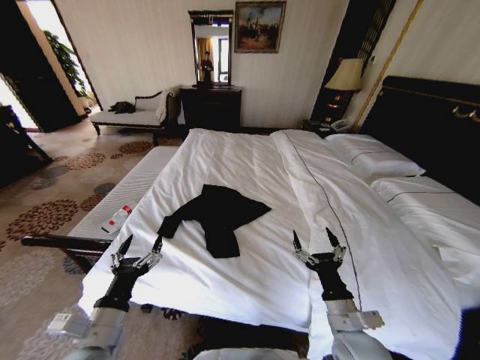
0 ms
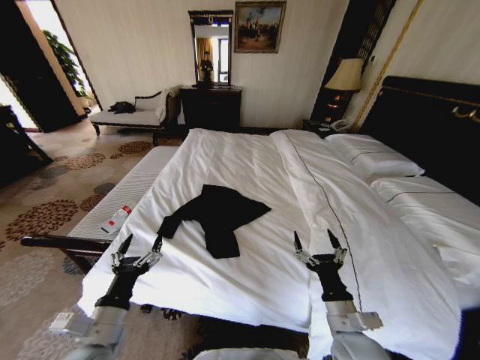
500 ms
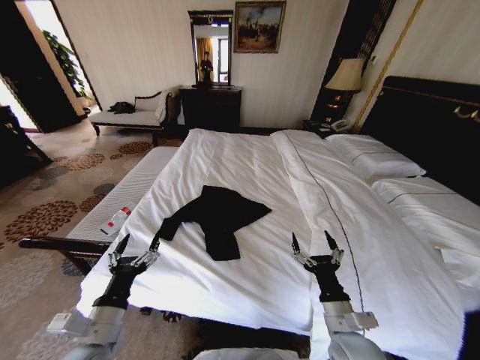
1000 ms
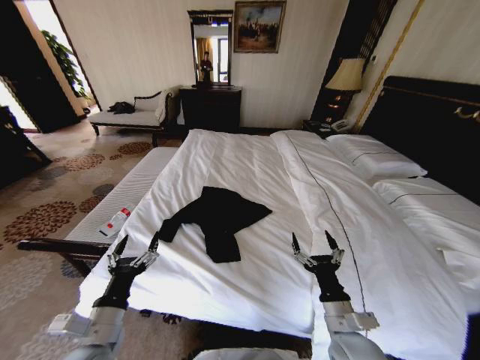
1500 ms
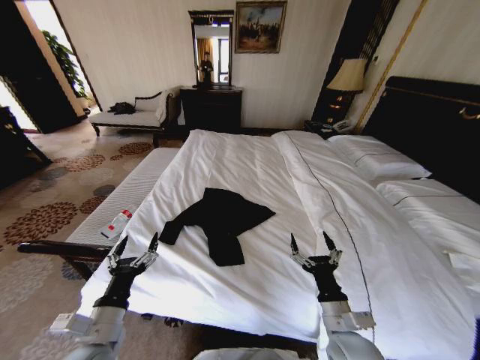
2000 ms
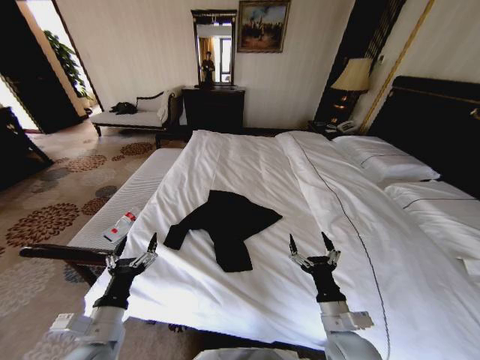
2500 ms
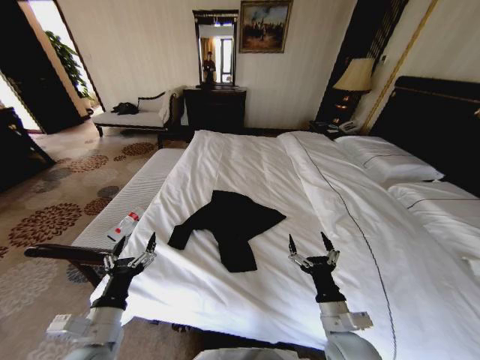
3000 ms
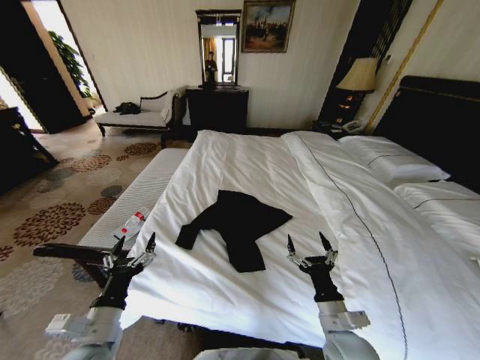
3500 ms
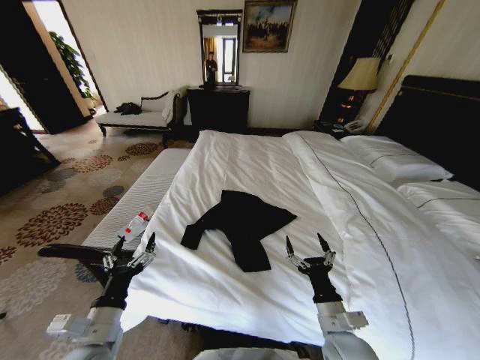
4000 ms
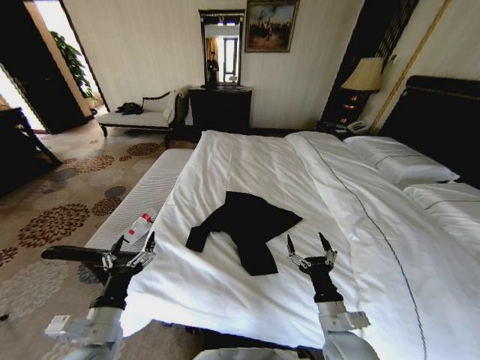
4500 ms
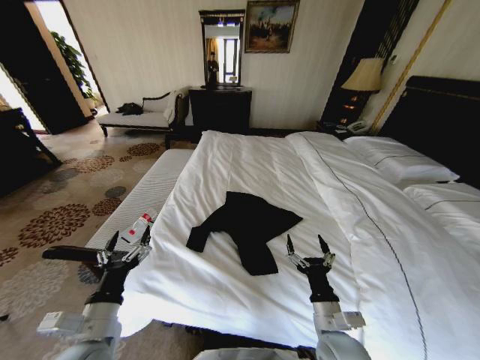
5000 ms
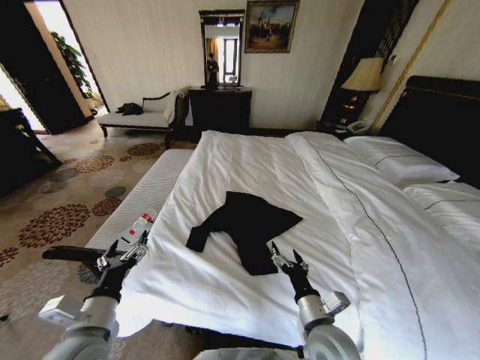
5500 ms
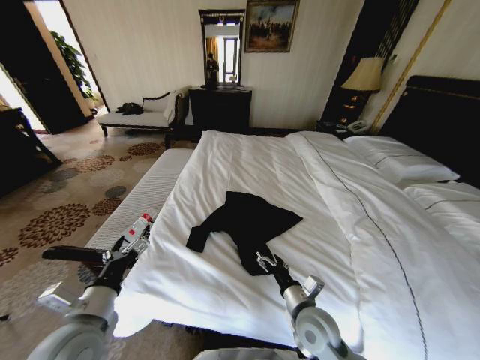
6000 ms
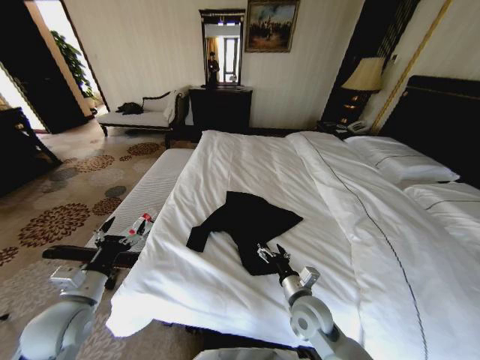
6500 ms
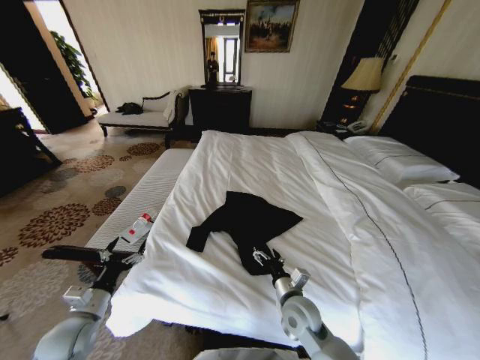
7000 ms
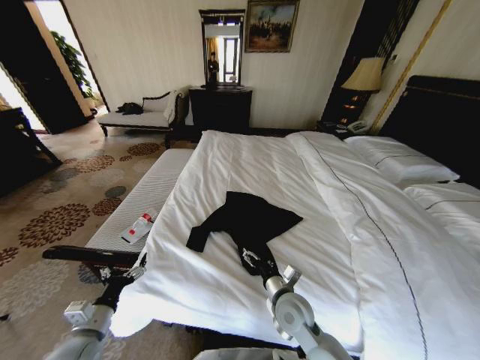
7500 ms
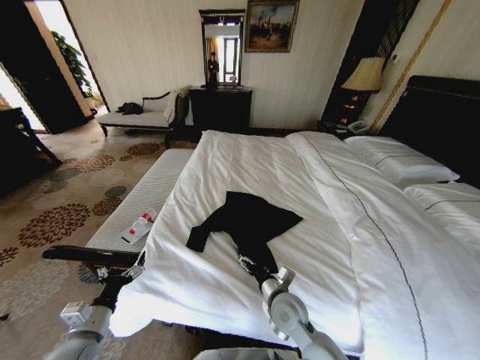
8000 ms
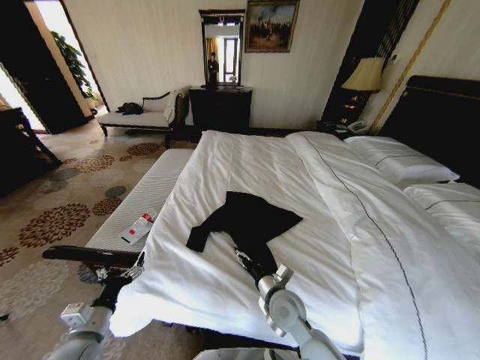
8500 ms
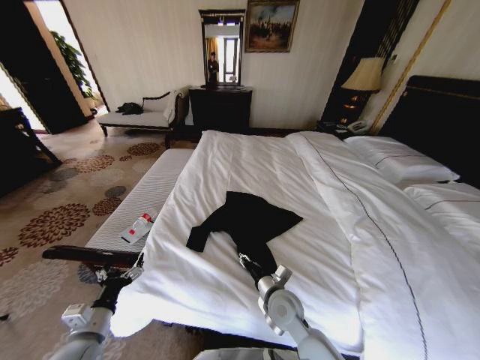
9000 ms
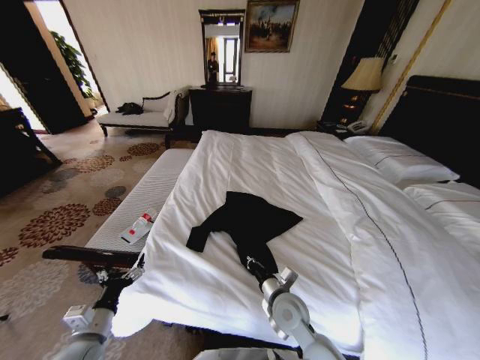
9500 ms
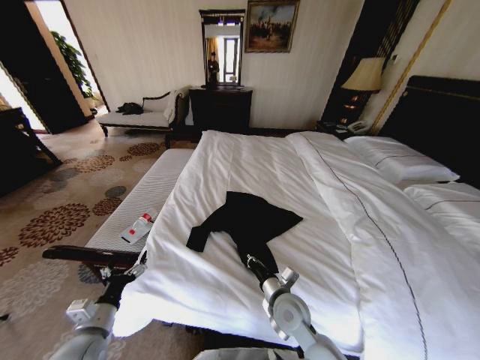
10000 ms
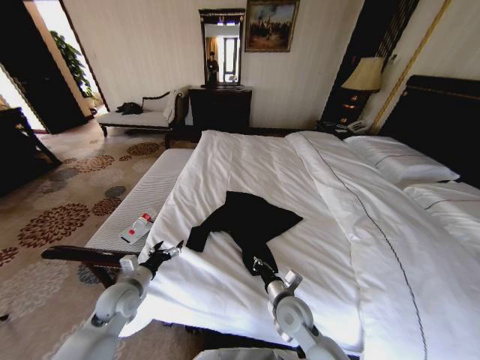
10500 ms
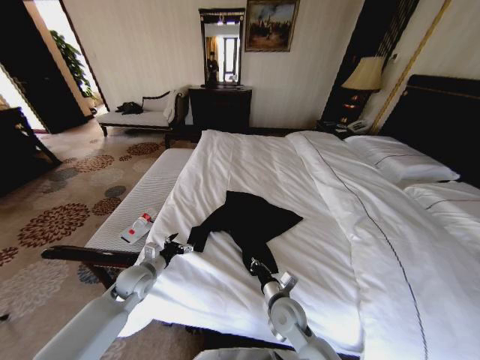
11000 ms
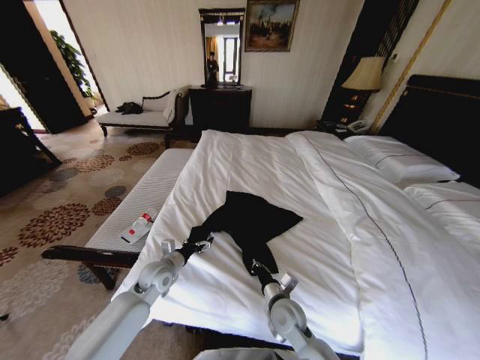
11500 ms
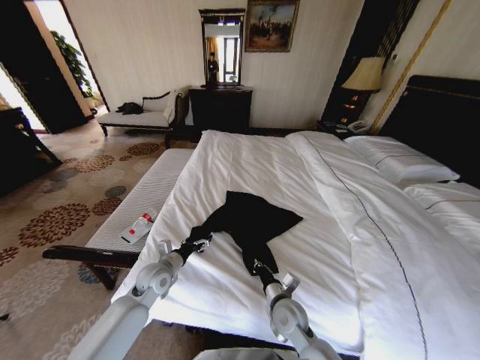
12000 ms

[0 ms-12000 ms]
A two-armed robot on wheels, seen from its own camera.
Task of the whole recording: Fold the clothes on the bed.
0 ms to 2000 ms: The grippers stay close to where they were, moving slightly.
4000 ms to 6000 ms: The left gripper moves about 5 cm; the right gripper ends up some 5 cm from where it was.
6000 ms to 8000 ms: The right gripper goes roughly 5 cm to the left. Meanwhile the left gripper travels downward and to the left by roughly 10 cm.
8000 ms to 10000 ms: The right gripper closes its fingers.
10000 ms to 12000 ms: The left gripper heads forward and to the right, covering approximately 20 cm.

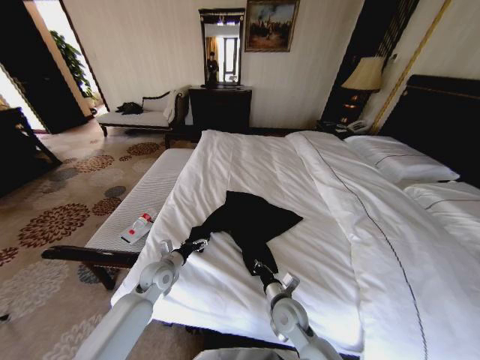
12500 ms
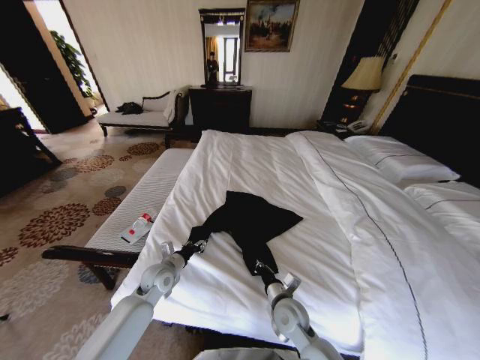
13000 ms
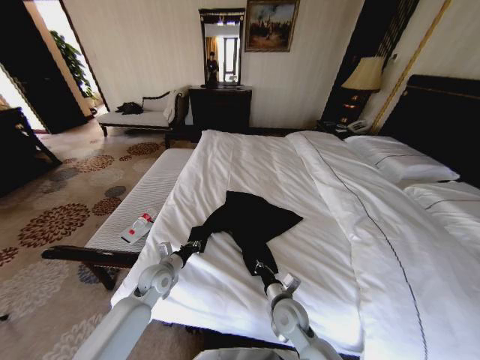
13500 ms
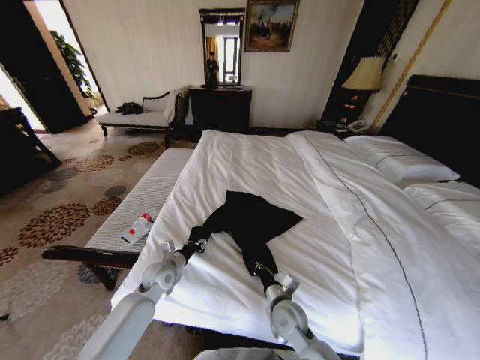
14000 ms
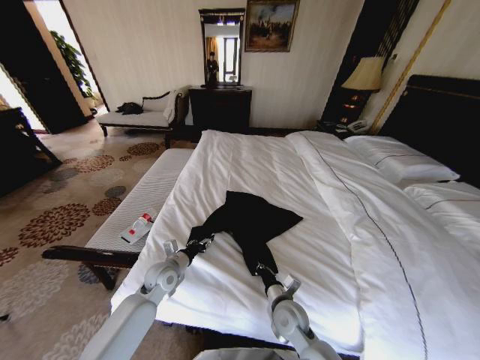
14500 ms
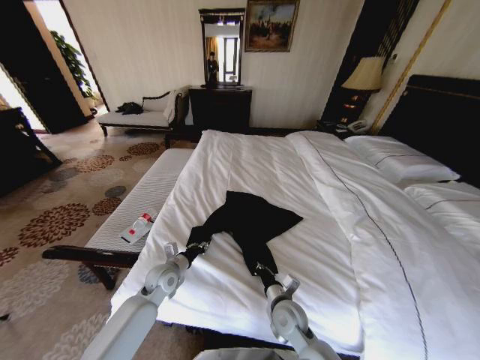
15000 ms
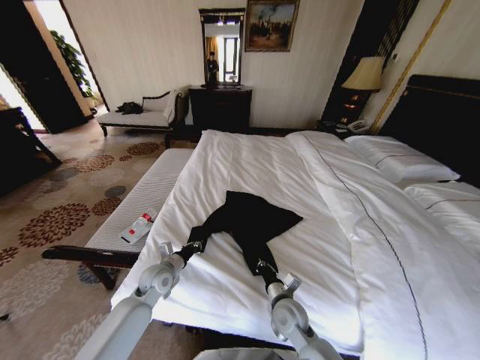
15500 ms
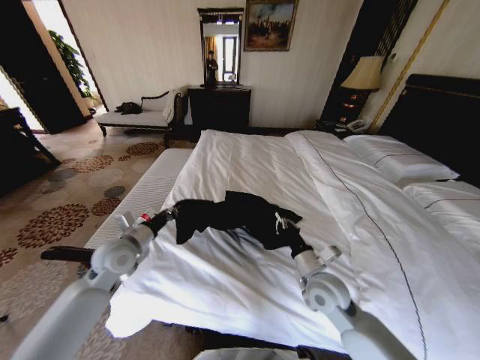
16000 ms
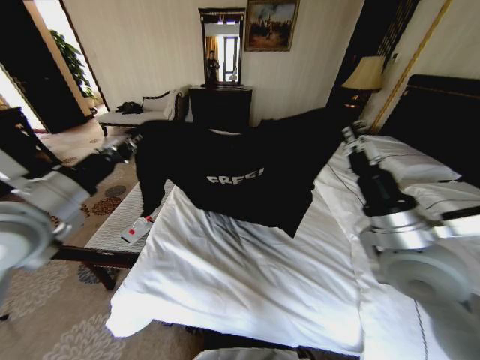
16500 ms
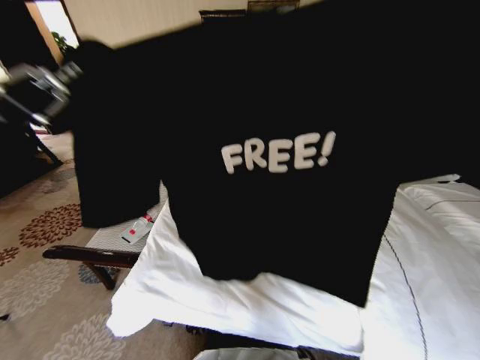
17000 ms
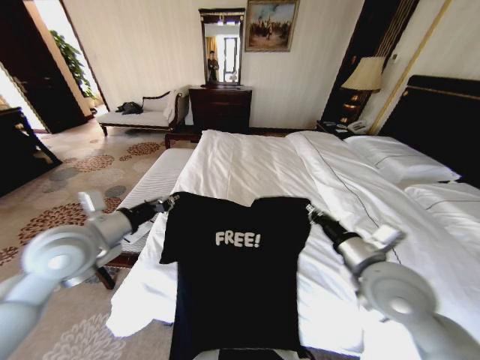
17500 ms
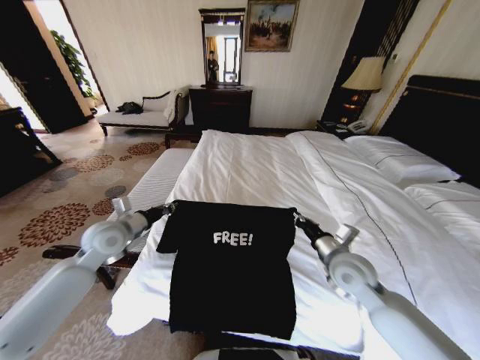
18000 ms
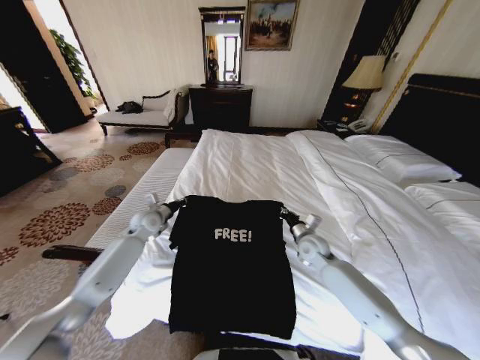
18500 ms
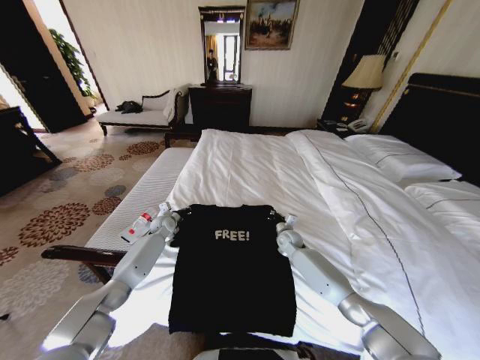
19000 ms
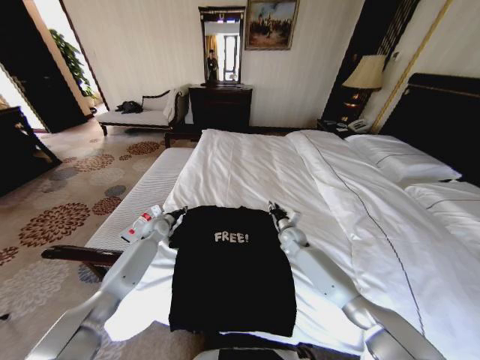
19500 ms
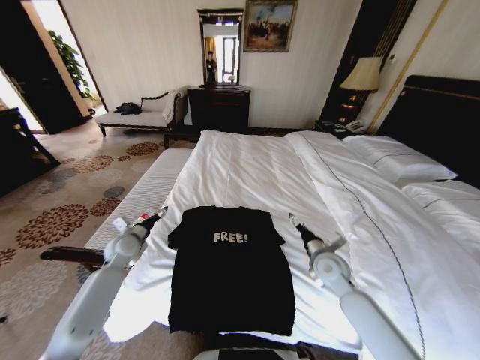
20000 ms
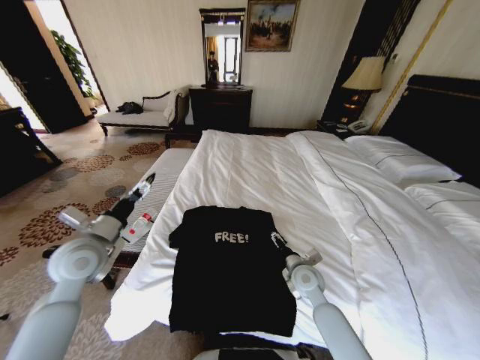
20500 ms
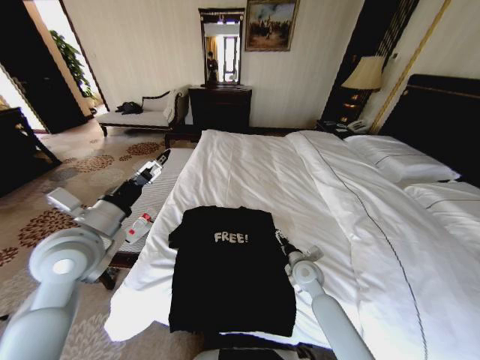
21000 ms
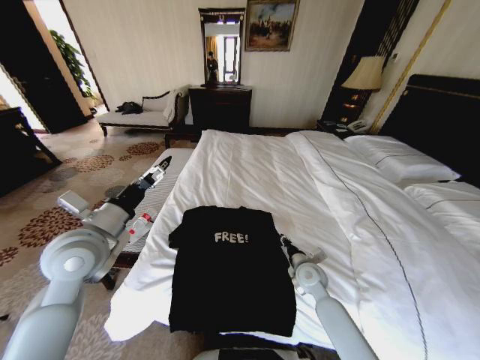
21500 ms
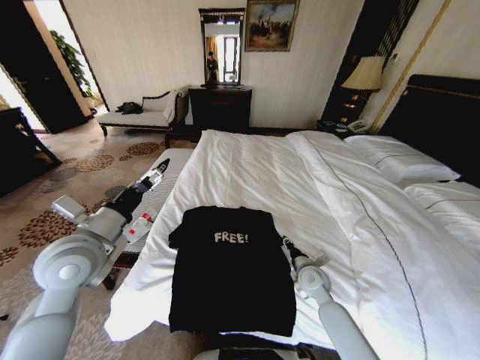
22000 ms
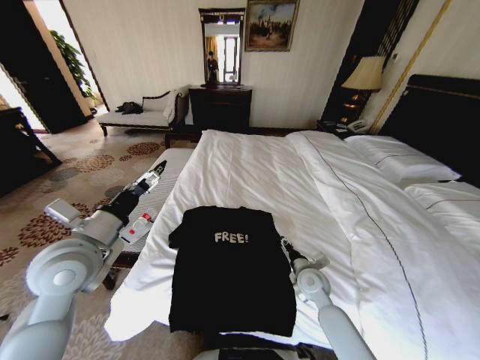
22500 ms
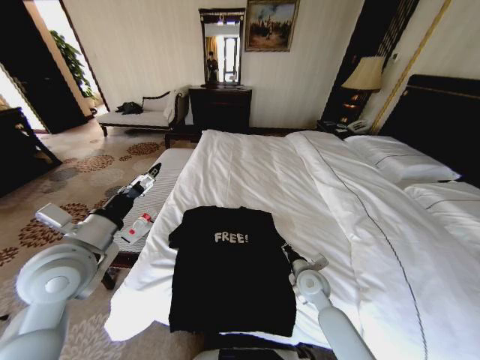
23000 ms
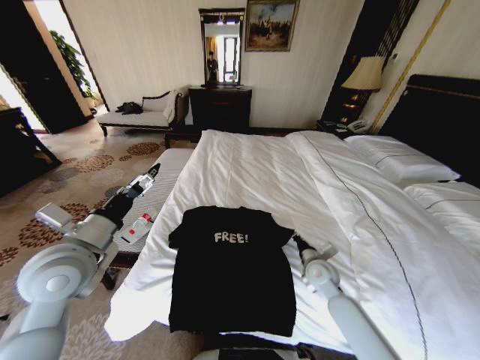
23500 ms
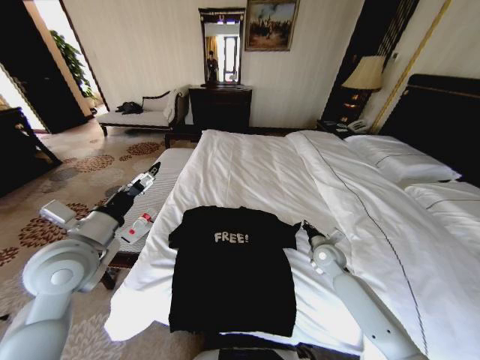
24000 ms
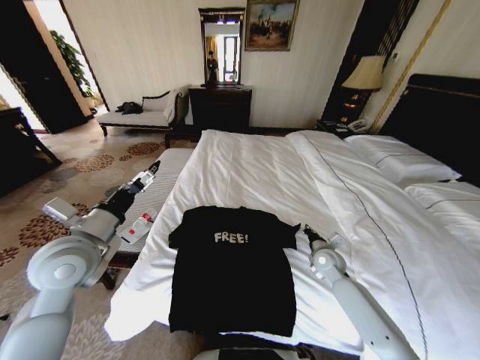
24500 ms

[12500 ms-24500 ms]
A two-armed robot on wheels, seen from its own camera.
Task of the whole recording: Fold the clothes on the bed.
12500 ms to 14500 ms: The left gripper closes up.
14500 ms to 16500 ms: The left gripper heads upward, covering about 35 cm, and closes, while the right gripper moves upward and to the right, roughly 35 cm.
16500 ms to 18500 ms: Both grippers move downward and forward, some 30 cm.
18500 ms to 20500 ms: The left gripper shifts approximately 25 cm backward and upward, and opens up, while the right gripper shifts approximately 10 cm backward, and opens up.
20500 ms to 22500 ms: The right gripper closes up; the left gripper shifts by approximately 5 cm.
22500 ms to 24500 ms: The right gripper goes roughly 10 cm to the right and forward, and closes its fingers.

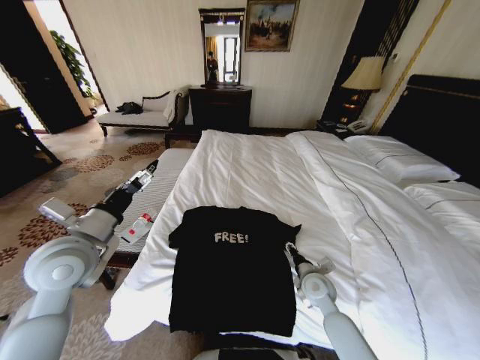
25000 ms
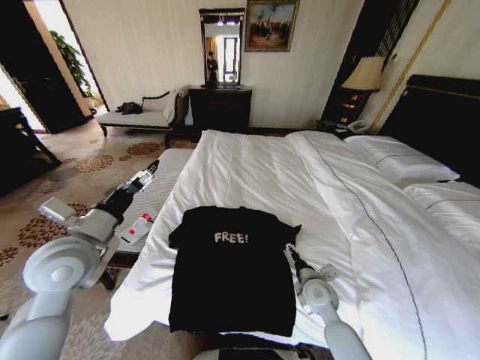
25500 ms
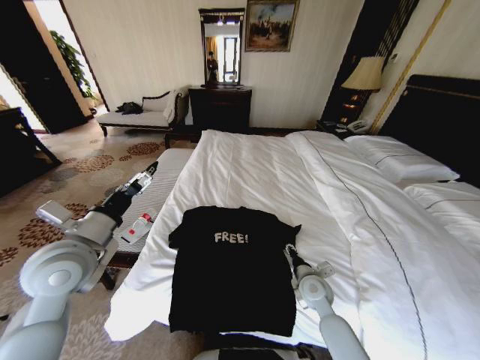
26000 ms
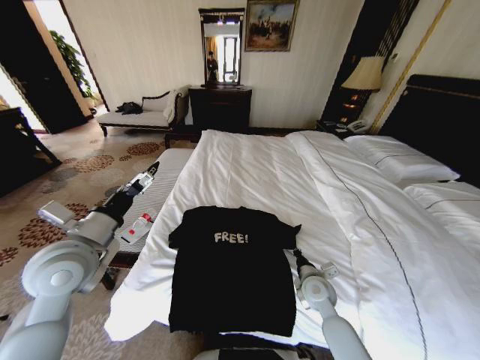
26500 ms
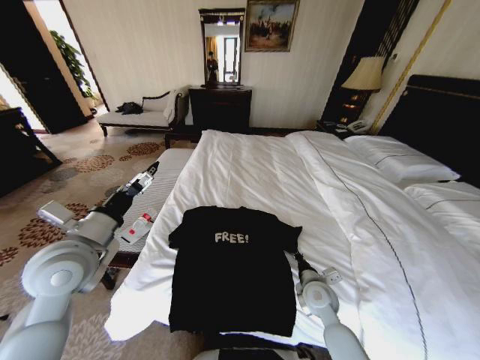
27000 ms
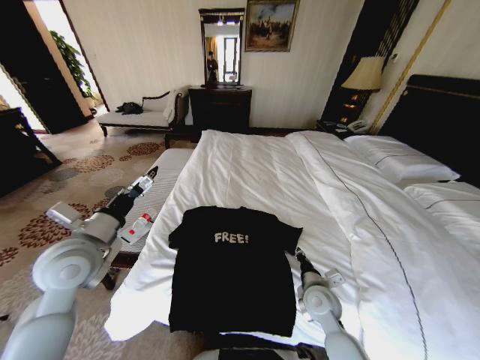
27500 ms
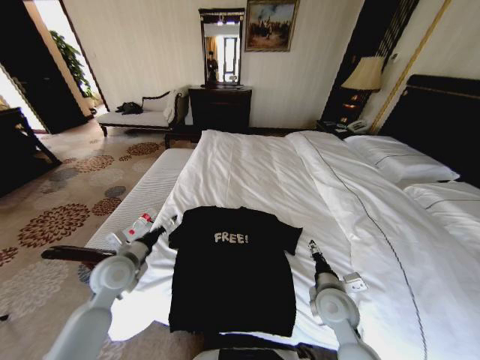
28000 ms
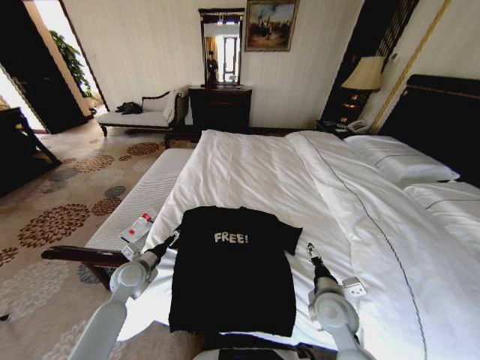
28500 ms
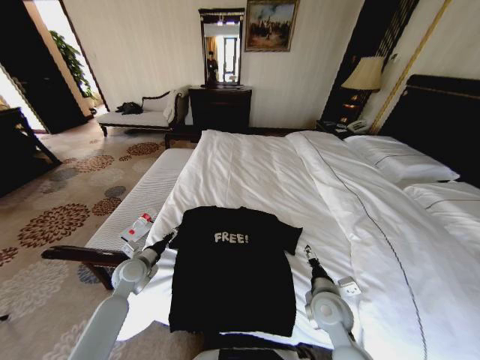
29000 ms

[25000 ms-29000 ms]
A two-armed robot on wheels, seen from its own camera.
Task of the whole recording: Fold the clothes on the bed.
25000 ms to 27000 ms: The right gripper closes up.
27000 ms to 29000 ms: The right gripper shifts by approximately 5 cm, and opens; the left gripper is displaced downward by roughly 25 cm.
